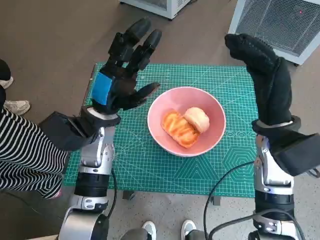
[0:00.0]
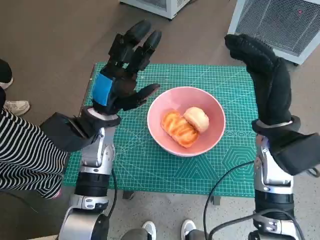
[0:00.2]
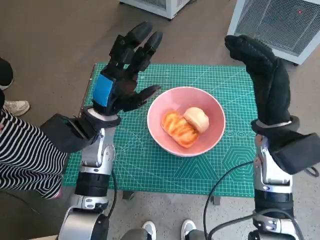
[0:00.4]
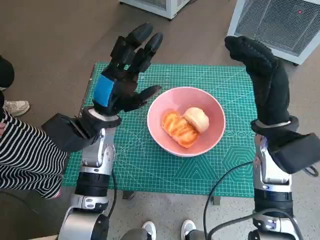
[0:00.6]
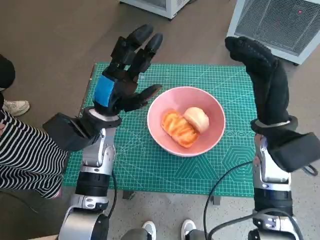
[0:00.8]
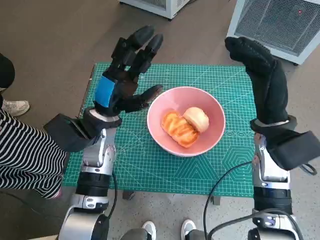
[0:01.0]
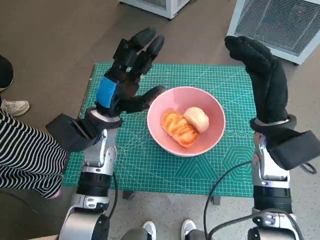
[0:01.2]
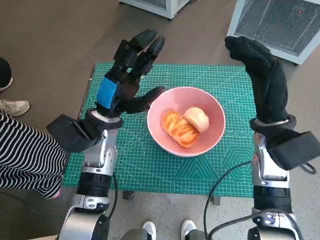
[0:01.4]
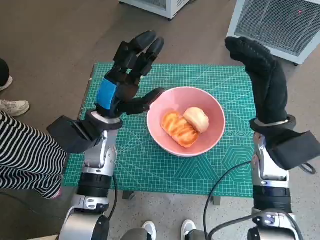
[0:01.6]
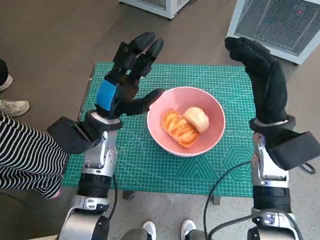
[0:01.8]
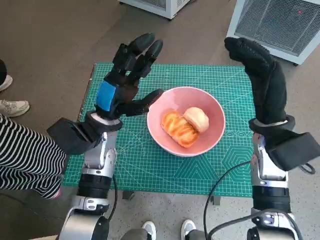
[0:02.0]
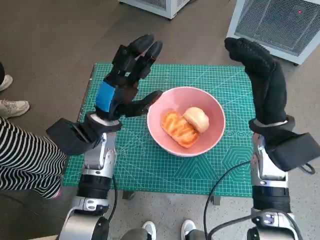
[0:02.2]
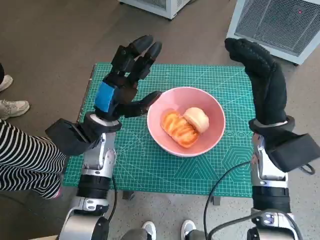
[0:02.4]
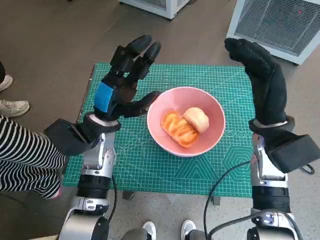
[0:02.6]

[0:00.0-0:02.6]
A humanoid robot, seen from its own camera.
Task of the whole recording: Push the bowl into the center of the table and put the bread into the bowl.
0:00.0 to 0:01.2: The hands move only a little.
0:01.2 to 0:02.6: The two hands keep their place.

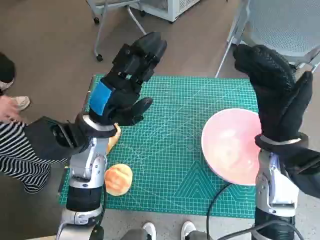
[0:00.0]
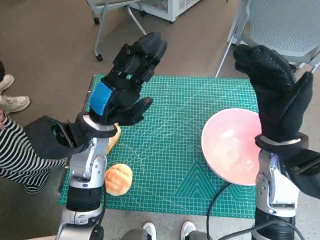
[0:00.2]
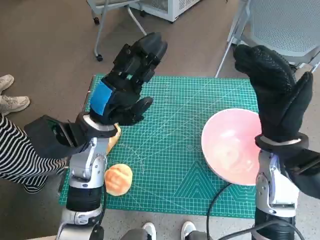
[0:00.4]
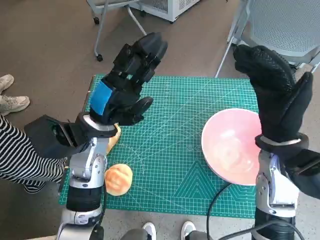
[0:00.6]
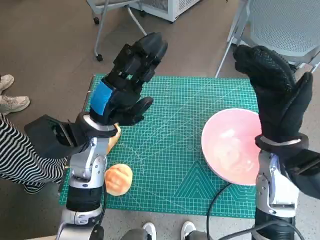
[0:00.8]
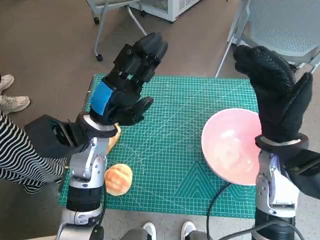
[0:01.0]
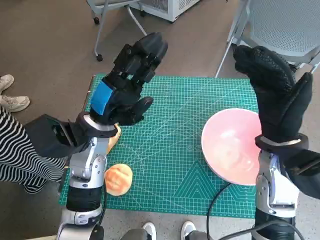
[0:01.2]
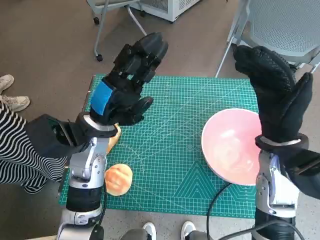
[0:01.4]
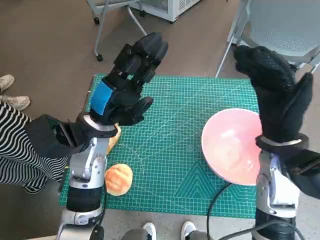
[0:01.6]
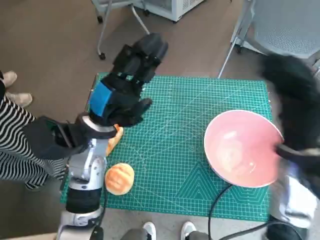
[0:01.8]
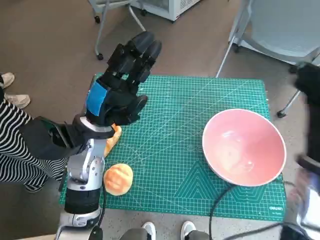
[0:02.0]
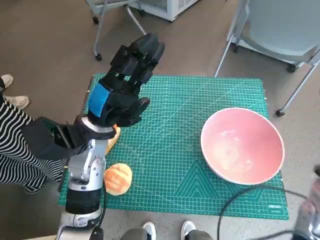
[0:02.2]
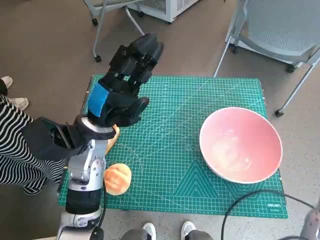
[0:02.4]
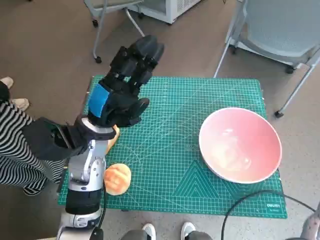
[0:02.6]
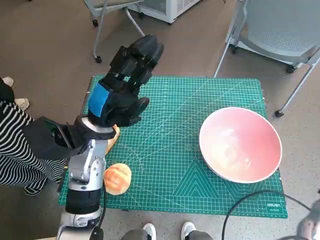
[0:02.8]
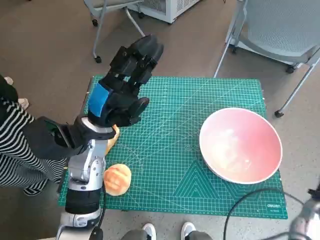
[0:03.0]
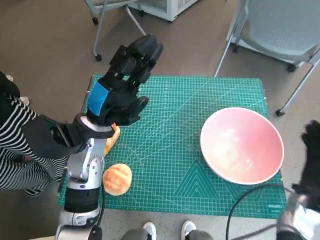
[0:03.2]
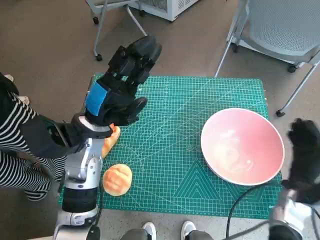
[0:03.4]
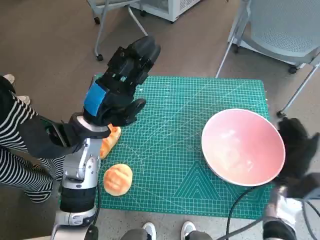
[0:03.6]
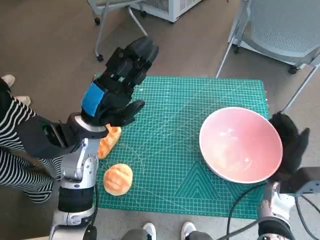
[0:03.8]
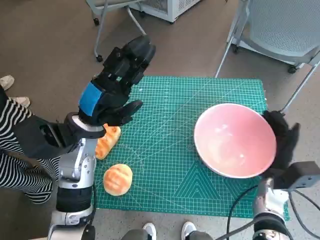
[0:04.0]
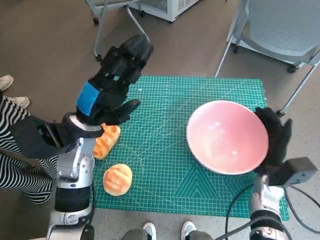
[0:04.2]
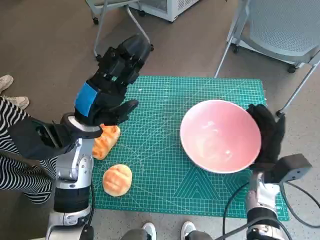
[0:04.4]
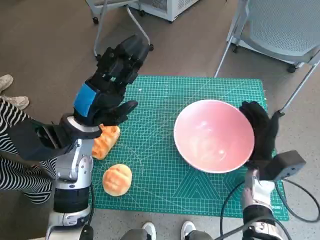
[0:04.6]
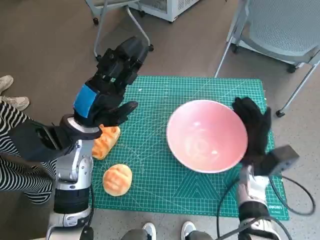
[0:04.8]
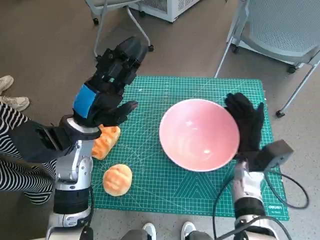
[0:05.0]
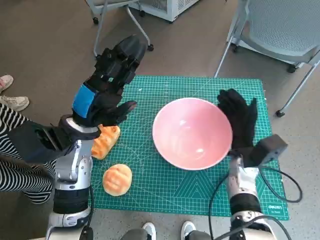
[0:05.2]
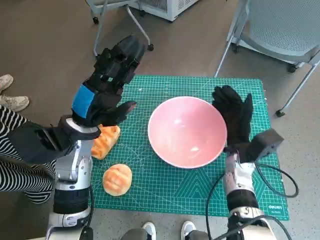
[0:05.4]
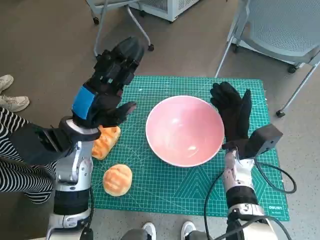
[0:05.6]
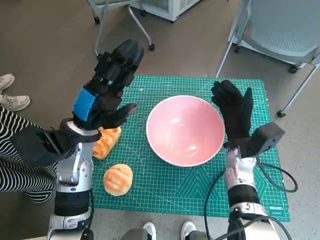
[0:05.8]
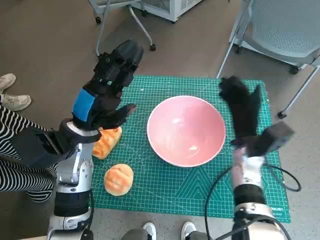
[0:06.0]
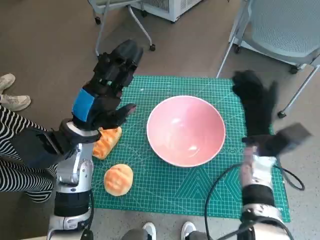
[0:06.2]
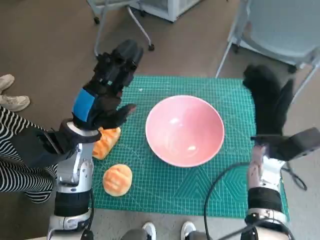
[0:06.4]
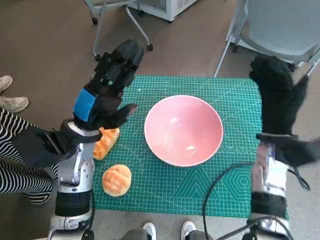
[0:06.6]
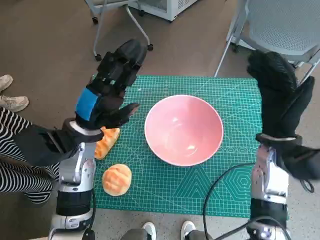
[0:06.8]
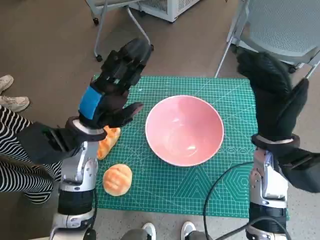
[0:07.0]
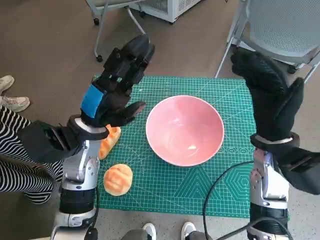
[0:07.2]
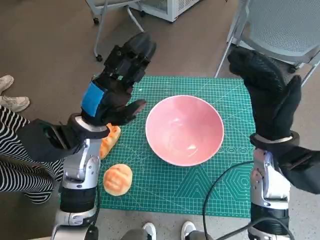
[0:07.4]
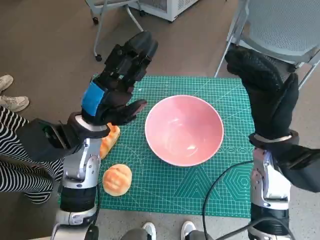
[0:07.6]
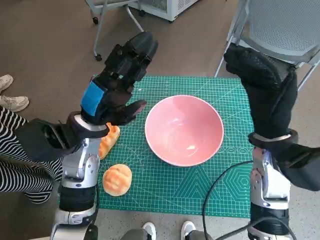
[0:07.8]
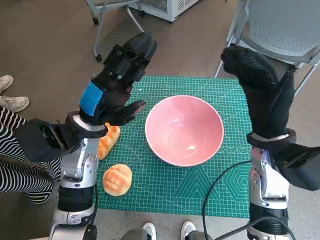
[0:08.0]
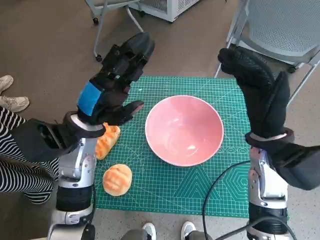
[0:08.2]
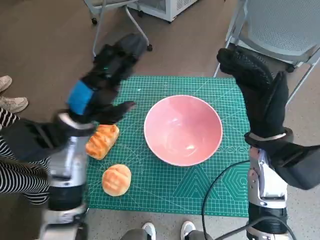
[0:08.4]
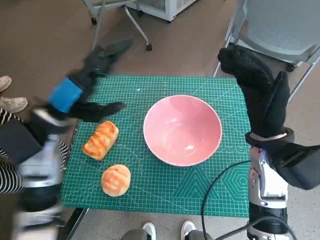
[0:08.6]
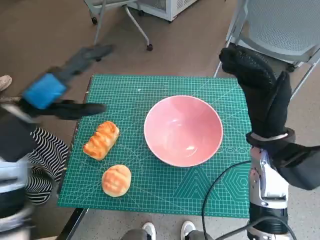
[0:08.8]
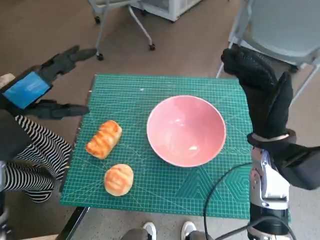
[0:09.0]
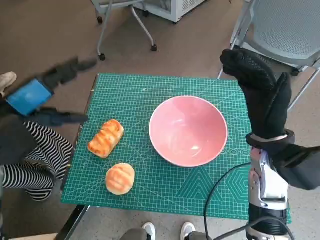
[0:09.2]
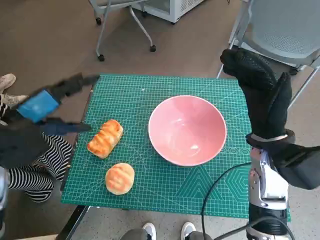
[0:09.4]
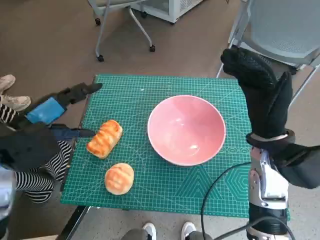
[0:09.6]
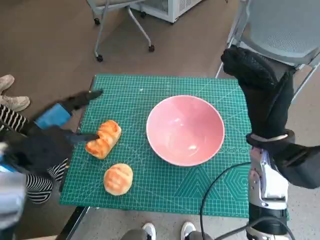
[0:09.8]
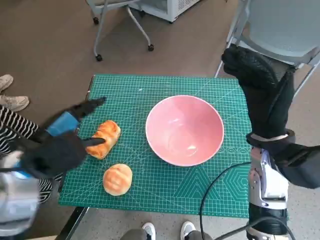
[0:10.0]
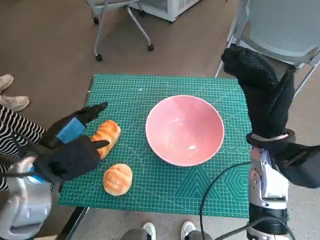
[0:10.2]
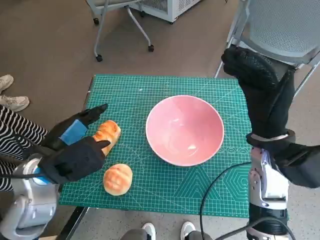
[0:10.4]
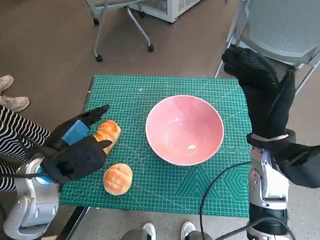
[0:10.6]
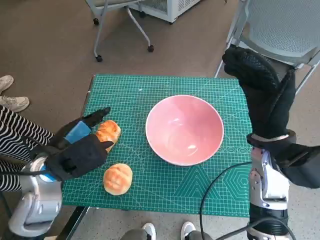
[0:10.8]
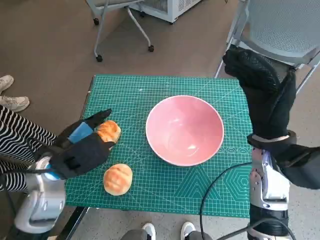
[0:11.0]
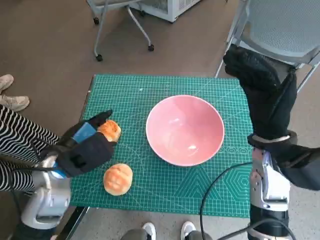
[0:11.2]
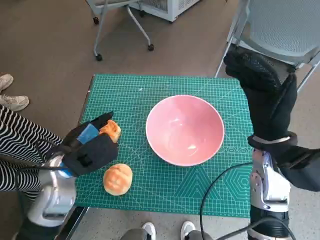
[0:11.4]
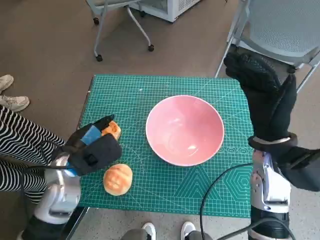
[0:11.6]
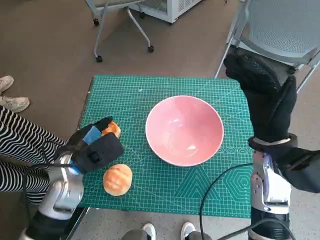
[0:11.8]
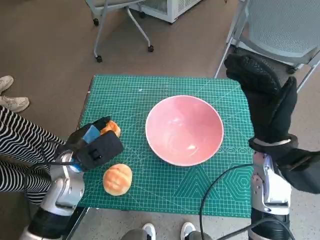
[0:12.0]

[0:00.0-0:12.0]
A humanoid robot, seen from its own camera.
Task of the whole recording: Push the bowl into the center of the table and put the bread into the bowl.
Step, 0:00.0 to 0:06.0: Move the pink bowl to the center of table with right hand.
0:01.6 to 0:03.0: The right hand is displaced downward, to the right and backward by some 20 cm.
0:03.0 to 0:04.4: The right hand heads to the left and forward, covering approximately 10 cm.
0:04.4 to 0:06.0: The right hand goes roughly 5 cm to the left.
0:06.0 to 0:07.6: The right hand shifts approximately 10 cm upward.
0:07.6 to 0:09.0: The left hand moves to the left and upward, about 15 cm.
0:09.0 to 0:10.4: The left hand shifts roughly 10 cm downward.
0:10.4 to 0:12.0: The left hand shifts some 5 cm downward.

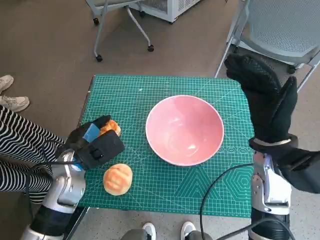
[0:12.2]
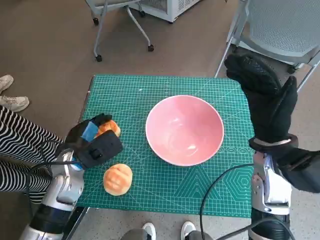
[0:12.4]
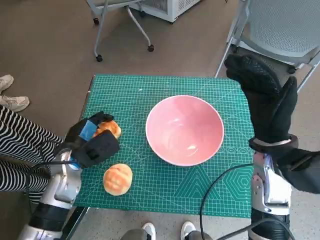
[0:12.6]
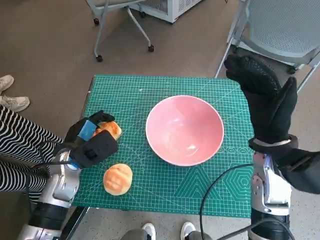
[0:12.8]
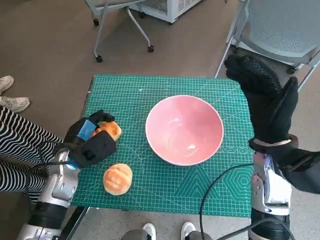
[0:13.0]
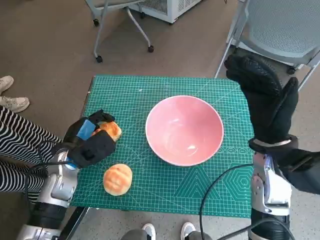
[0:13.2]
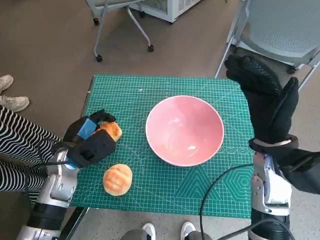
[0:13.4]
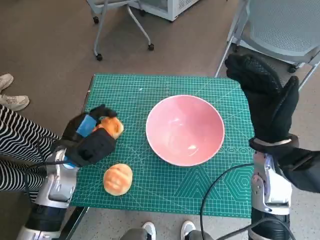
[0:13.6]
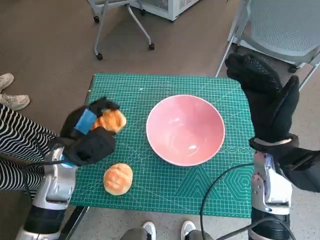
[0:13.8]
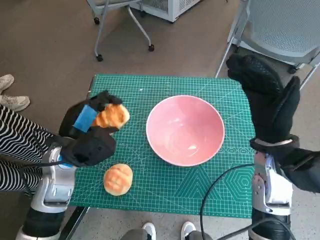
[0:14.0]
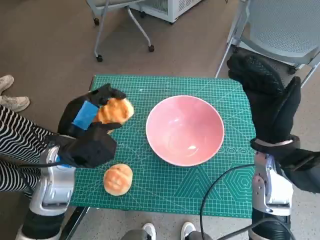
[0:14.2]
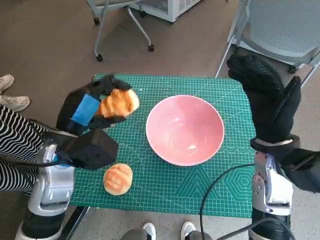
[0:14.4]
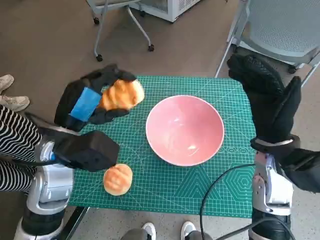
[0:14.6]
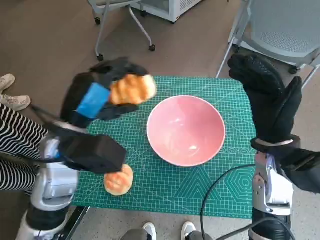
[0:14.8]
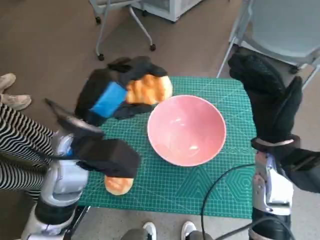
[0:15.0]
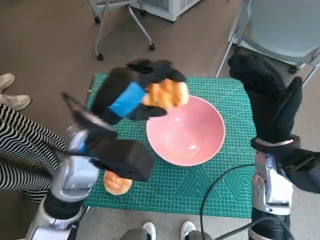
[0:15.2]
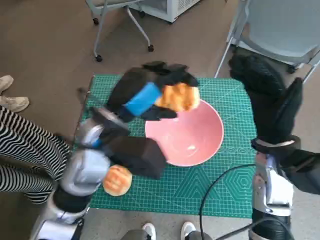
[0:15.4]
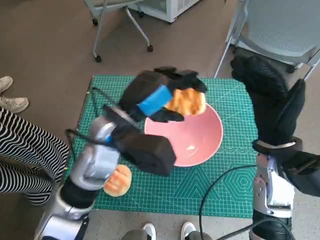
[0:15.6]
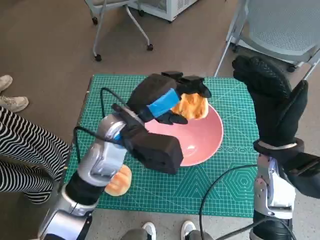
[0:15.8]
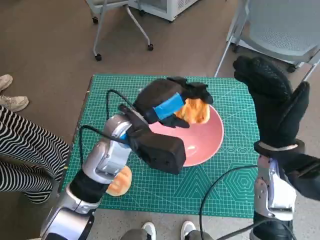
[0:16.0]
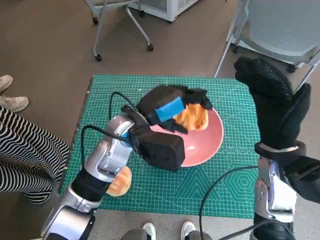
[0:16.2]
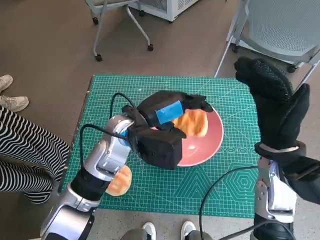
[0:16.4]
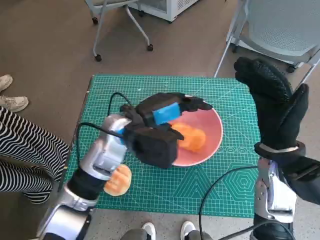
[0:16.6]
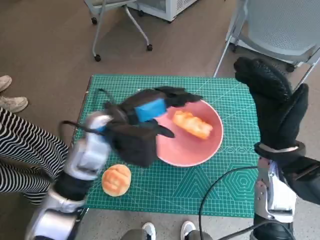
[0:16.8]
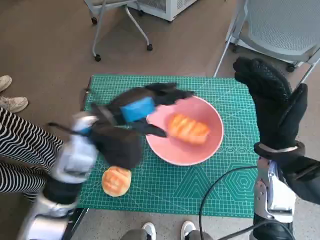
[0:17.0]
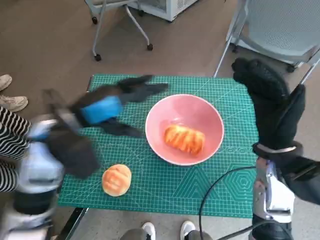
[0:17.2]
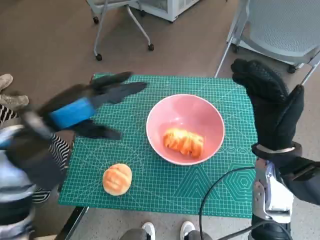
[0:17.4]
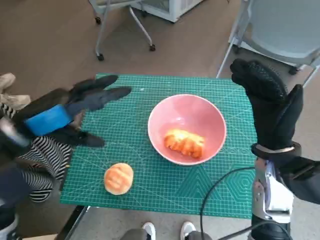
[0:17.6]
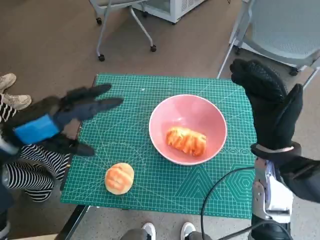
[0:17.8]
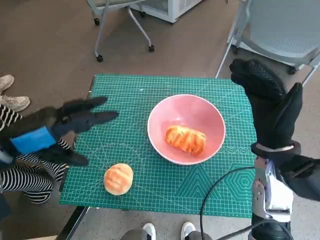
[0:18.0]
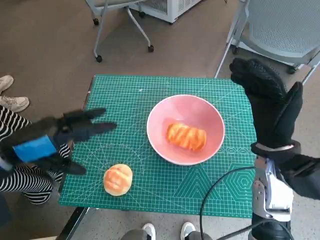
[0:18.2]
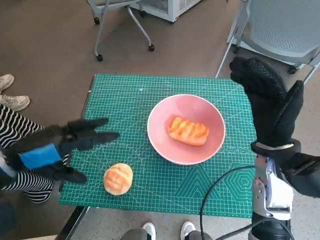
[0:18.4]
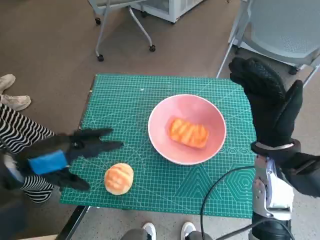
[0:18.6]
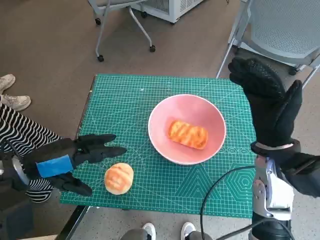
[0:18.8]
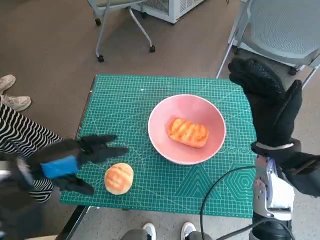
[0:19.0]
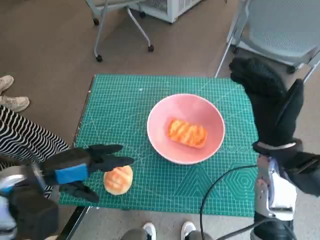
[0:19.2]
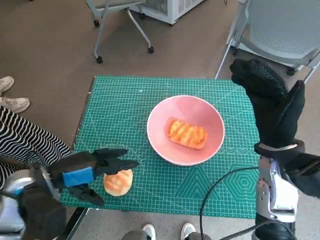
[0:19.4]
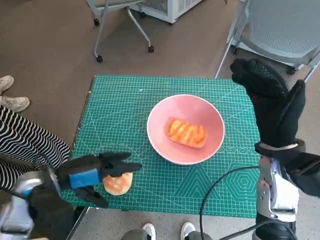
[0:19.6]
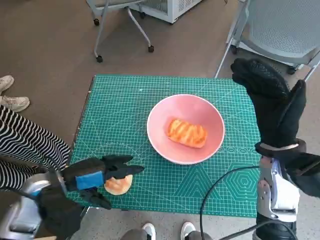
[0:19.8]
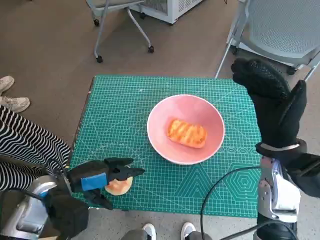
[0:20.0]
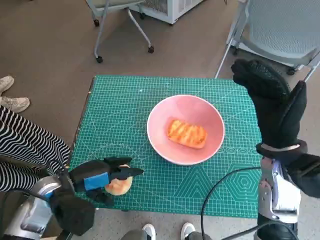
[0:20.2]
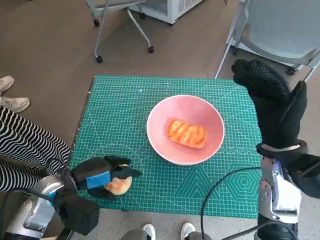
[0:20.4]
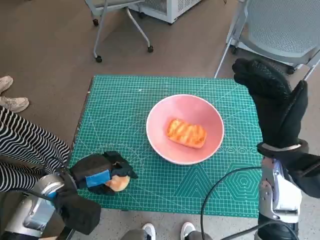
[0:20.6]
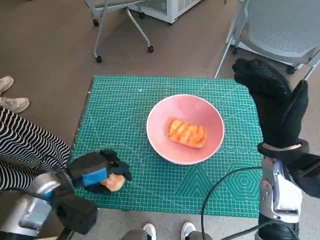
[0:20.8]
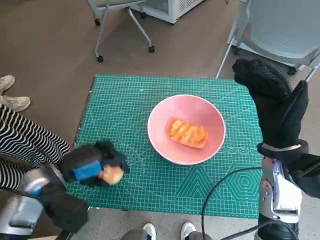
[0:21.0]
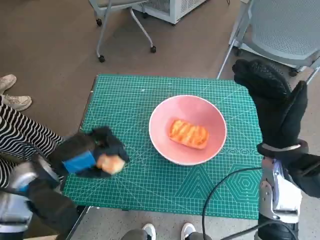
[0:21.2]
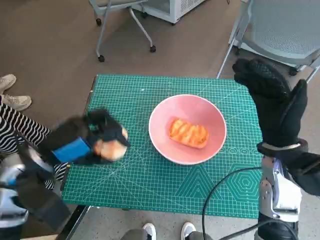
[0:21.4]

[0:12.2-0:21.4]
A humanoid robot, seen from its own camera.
Task of the whole recording: Push the bowl into the center of the table and put the bread into the bowl.
Step, 0:13.2 to 0:16.6: Place the long bread in pink bowl with left hand.
Step, 0:16.8 to 0:20.4: Grasp the round bread with left hand.
0:12.2 to 0:13.8: There are only small adjustments of the hands.
0:13.8 to 0:15.2: The left hand moves upward and to the right, about 15 cm.
0:15.2 to 0:16.8: The left hand shifts by some 5 cm.
0:16.8 to 0:18.4: The left hand heads to the left and backward, covering approximately 20 cm.
0:18.4 to 0:19.8: The left hand heads downward, covering some 10 cm.
0:19.8 to 0:21.4: The left hand shifts some 5 cm upward.
